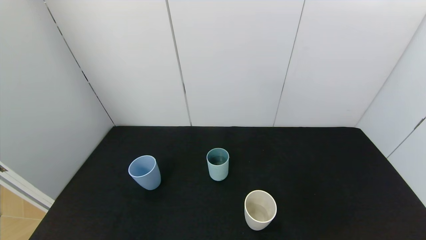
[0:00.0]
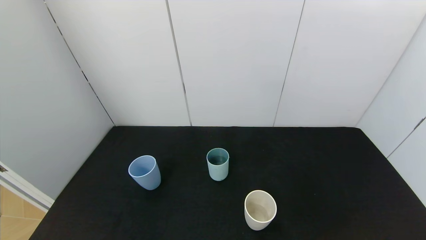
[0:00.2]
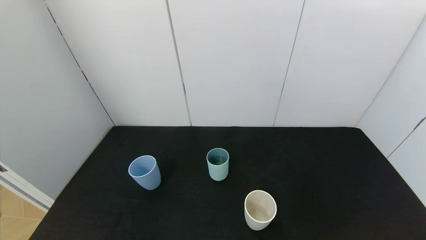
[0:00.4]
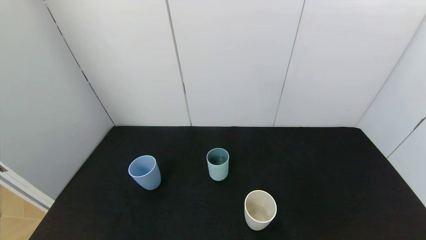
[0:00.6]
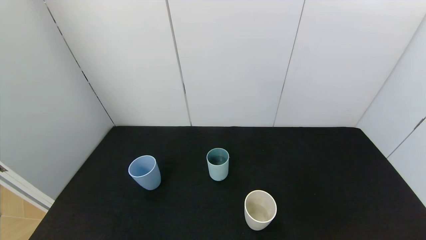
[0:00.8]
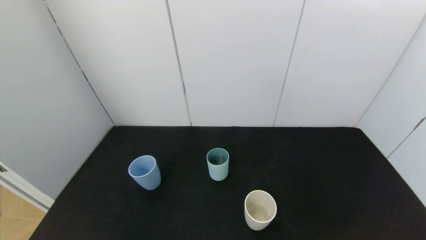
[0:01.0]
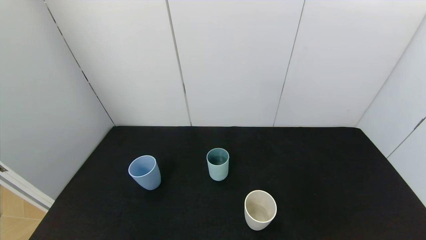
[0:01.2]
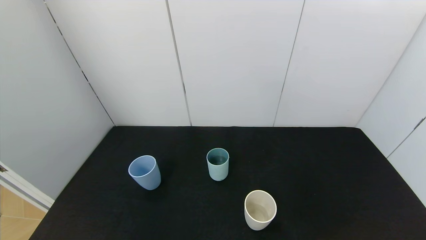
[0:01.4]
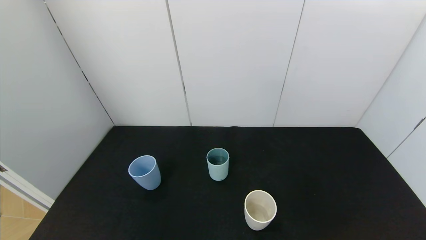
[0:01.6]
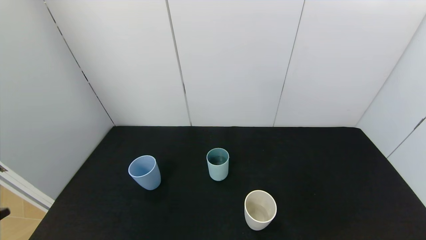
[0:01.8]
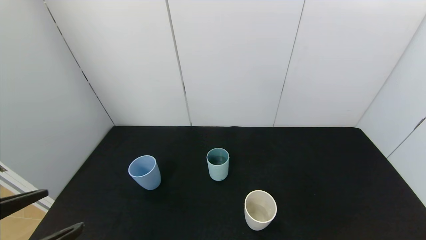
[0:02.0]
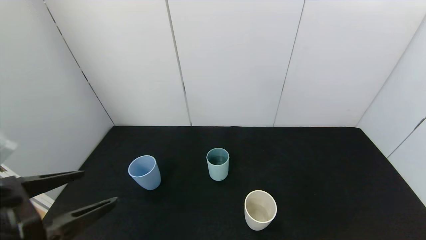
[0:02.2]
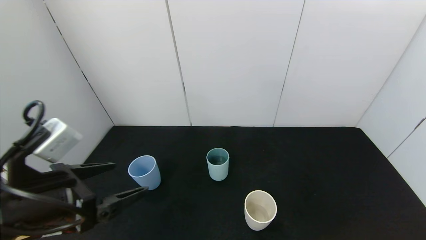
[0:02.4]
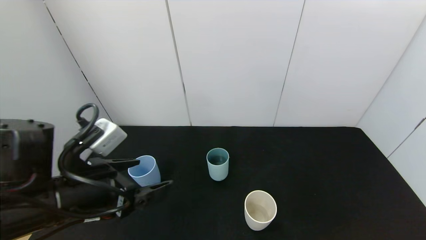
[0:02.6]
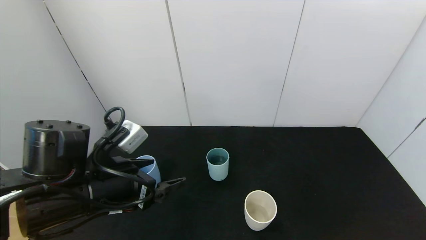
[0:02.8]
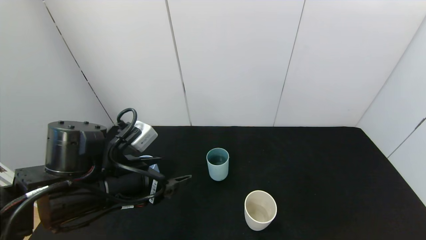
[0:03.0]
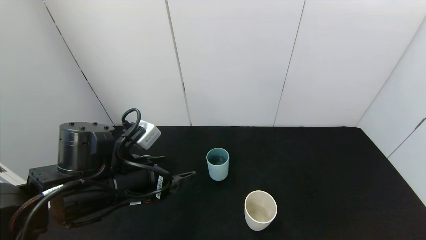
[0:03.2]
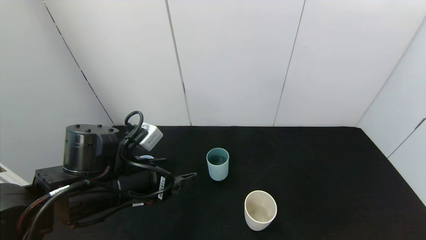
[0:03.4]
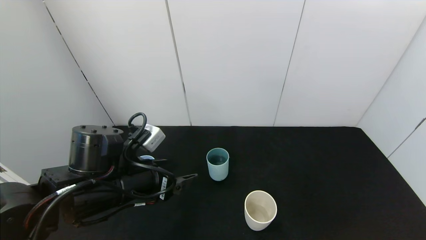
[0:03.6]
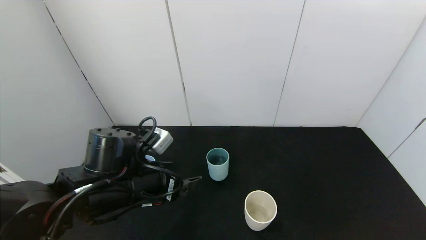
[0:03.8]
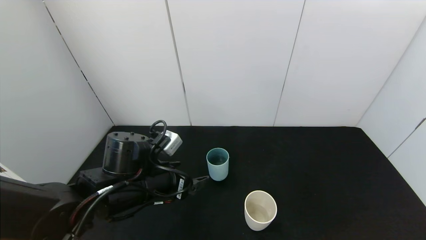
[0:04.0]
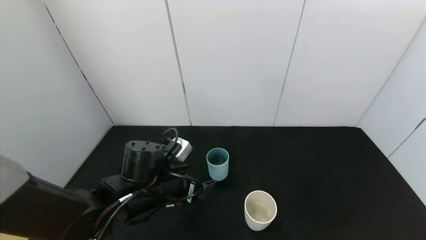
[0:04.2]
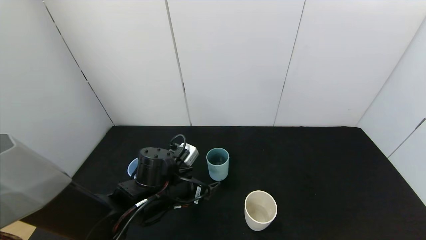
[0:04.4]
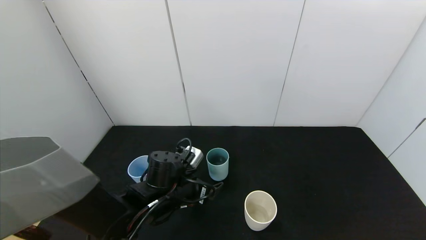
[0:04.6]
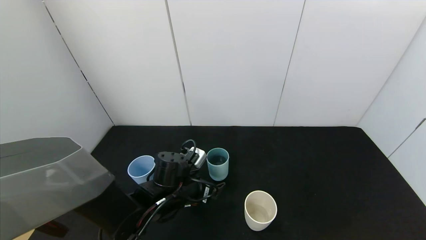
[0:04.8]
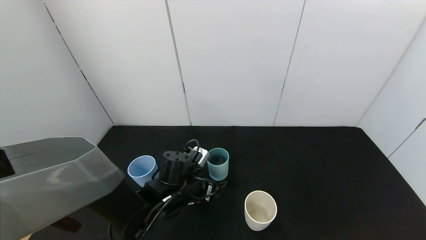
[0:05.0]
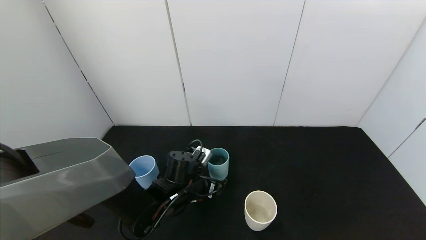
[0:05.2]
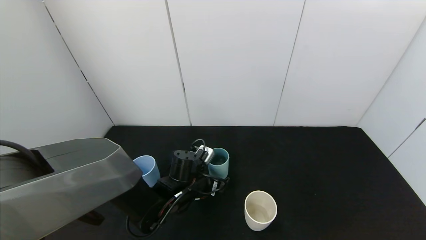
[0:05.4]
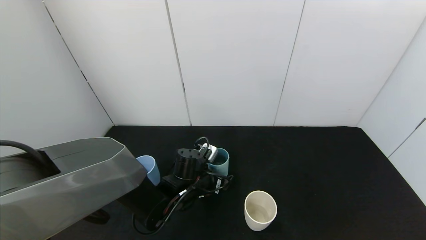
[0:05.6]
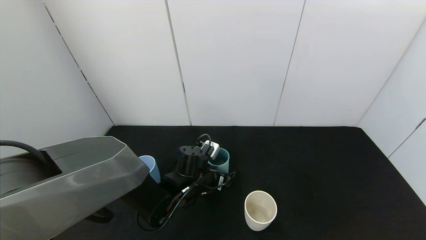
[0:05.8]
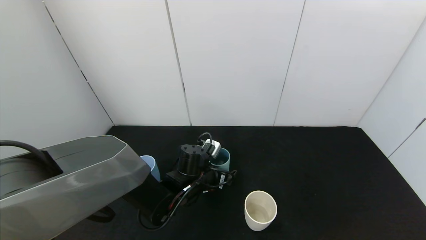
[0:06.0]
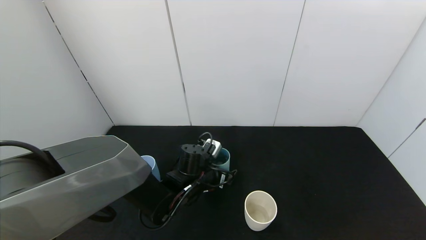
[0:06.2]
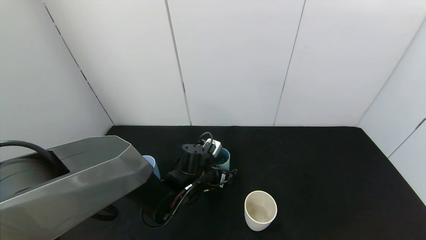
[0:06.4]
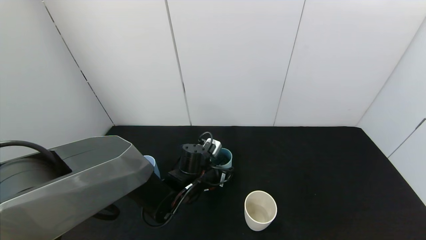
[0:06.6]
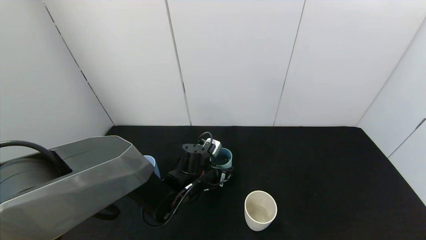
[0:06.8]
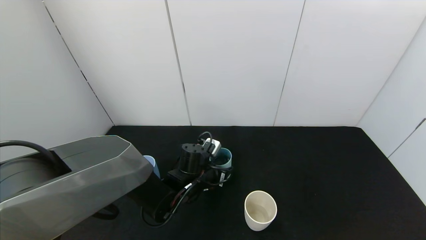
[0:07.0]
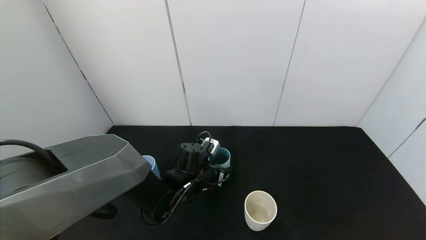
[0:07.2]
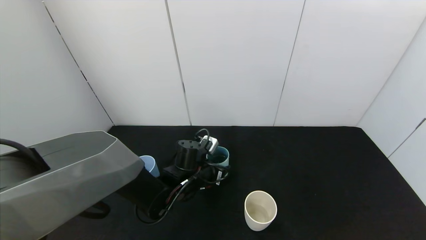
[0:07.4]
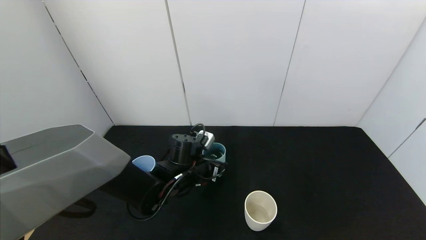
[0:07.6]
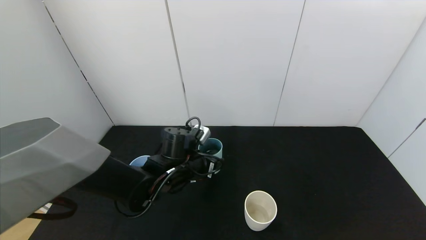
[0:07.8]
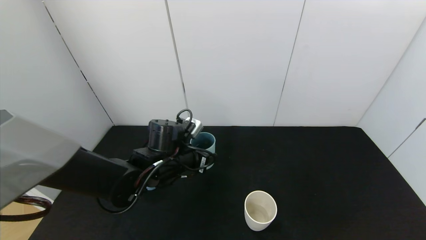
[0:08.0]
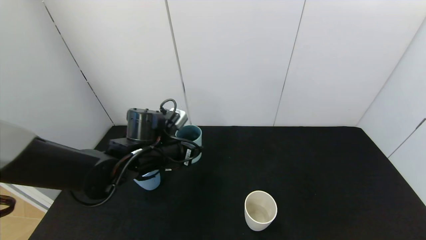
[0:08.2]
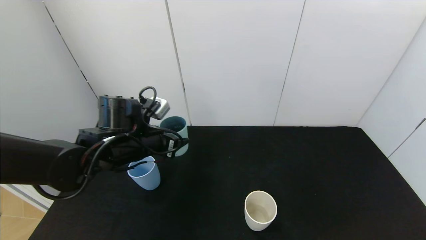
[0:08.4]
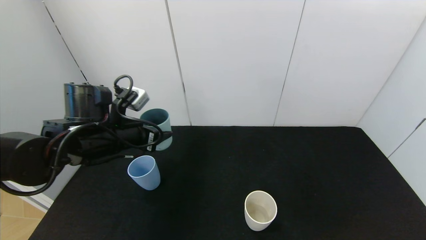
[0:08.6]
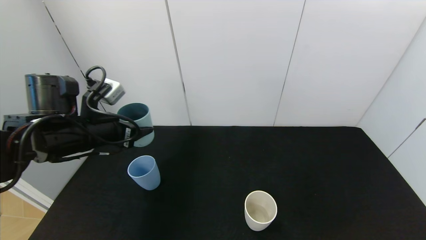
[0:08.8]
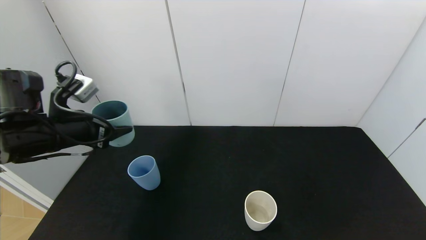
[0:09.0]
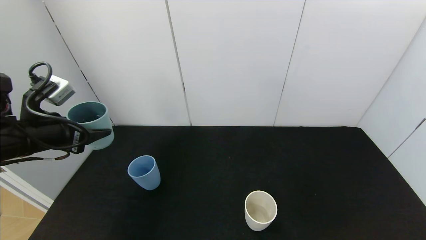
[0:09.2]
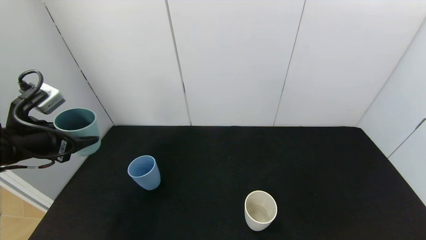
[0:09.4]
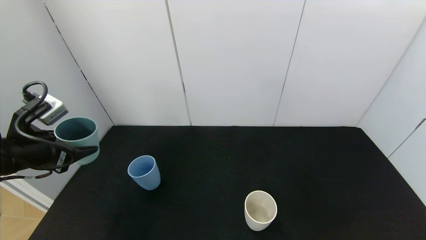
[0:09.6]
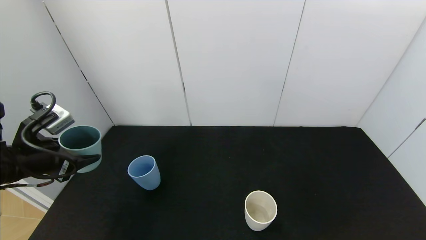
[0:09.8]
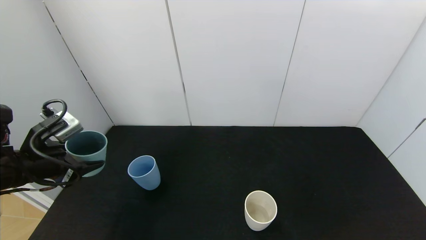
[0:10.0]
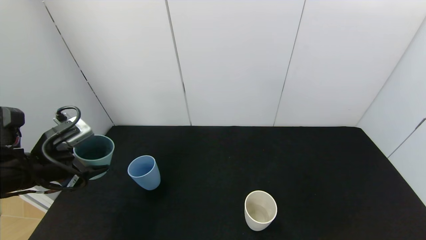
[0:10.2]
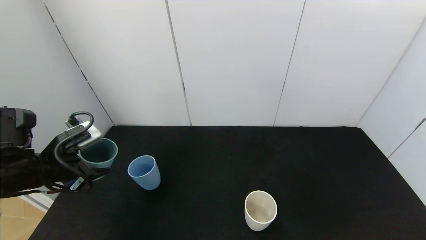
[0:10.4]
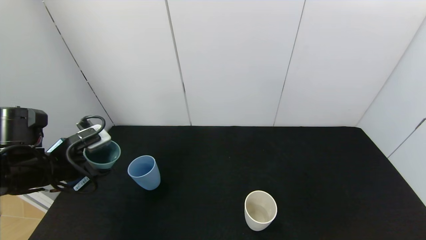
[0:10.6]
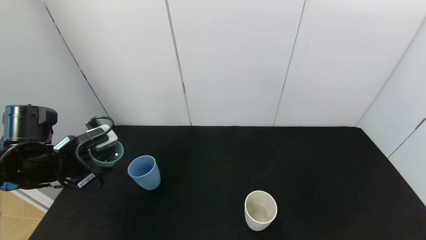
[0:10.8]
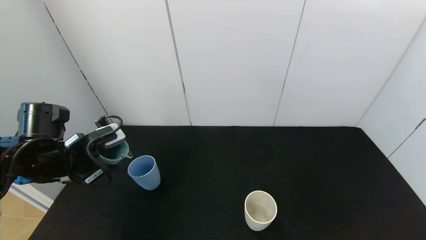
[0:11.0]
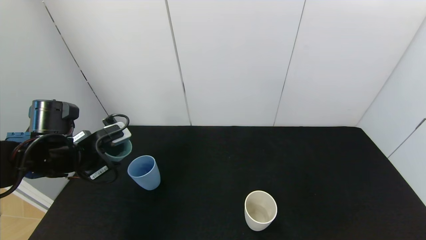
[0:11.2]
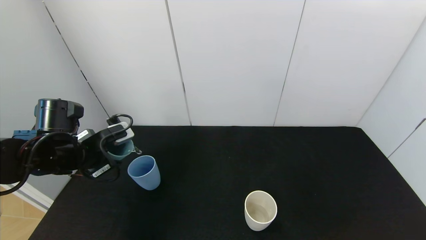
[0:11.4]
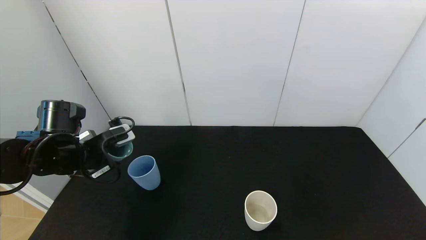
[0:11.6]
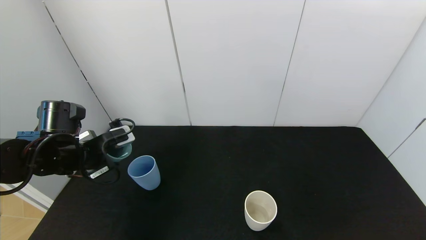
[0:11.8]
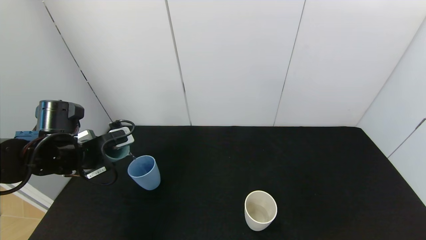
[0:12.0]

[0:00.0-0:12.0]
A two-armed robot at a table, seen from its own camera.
Task of the whole recording: use the gripper to pour the water into the other two cups on black table.
Step, 0:00.0 to 0:07.2: Grasp the green cup with the left gripper.
0:01.6 to 0:03.0: The left gripper shifts about 25 cm forward and to the right.
0:03.0 to 0:04.4: The left gripper travels downward, to the right and forward by roughly 10 cm.
0:04.4 to 0:06.0: The left gripper goes some 10 cm forward and to the right.
0:06.0 to 0:07.6: The left gripper closes up.
0:07.6 to 0:09.0: The left gripper is displaced to the left and upward by some 25 cm.
0:09.0 to 0:10.4: The left gripper travels downward by about 5 cm.
0:10.4 to 0:12.0: The left gripper is displaced forward by about 5 cm.

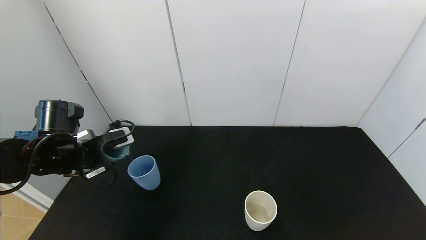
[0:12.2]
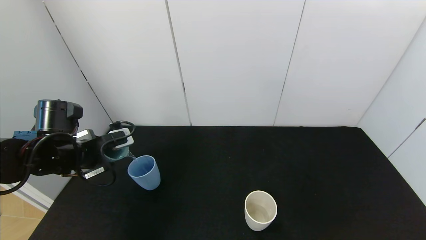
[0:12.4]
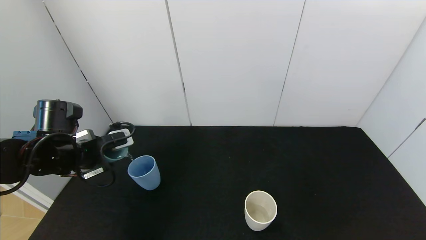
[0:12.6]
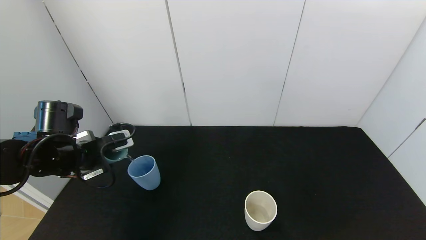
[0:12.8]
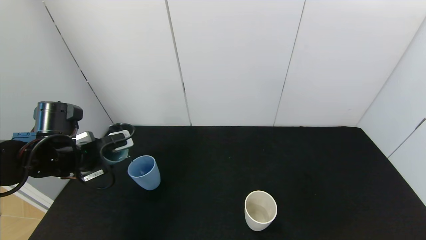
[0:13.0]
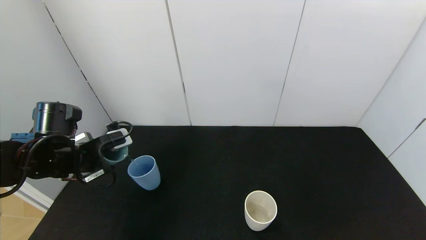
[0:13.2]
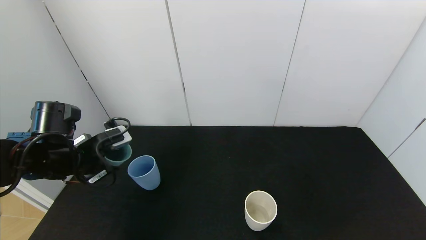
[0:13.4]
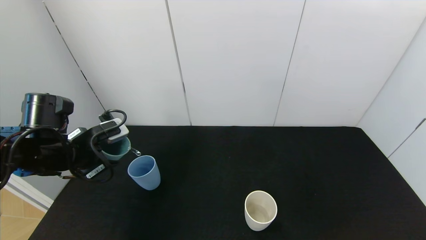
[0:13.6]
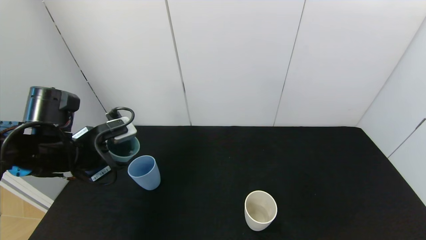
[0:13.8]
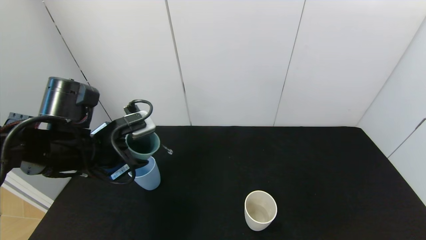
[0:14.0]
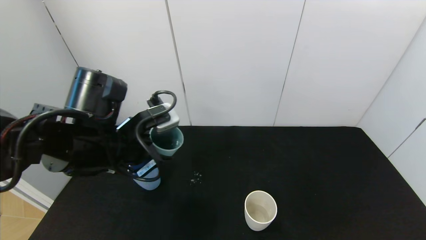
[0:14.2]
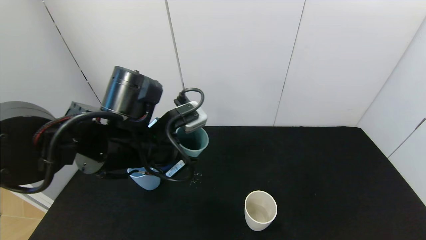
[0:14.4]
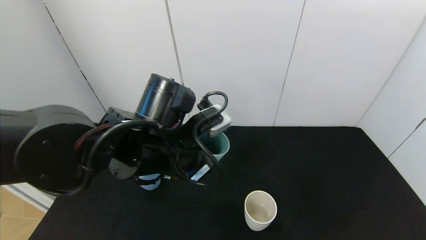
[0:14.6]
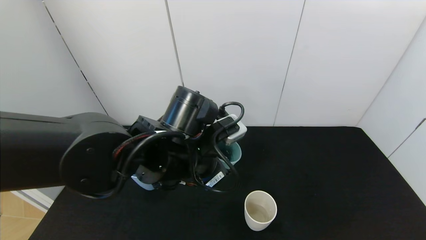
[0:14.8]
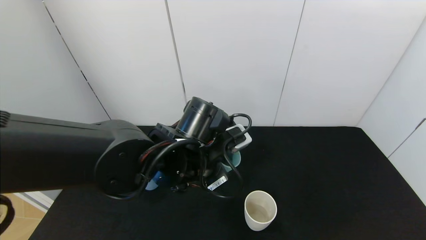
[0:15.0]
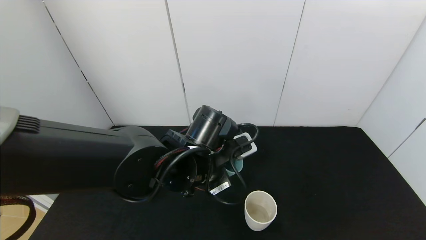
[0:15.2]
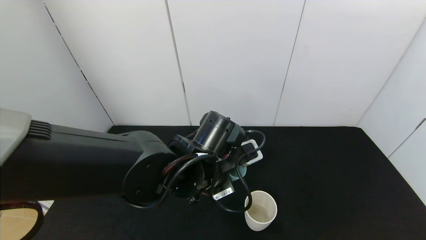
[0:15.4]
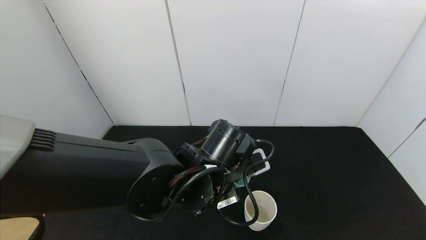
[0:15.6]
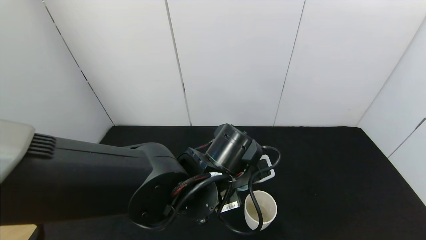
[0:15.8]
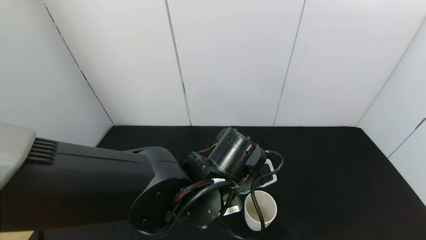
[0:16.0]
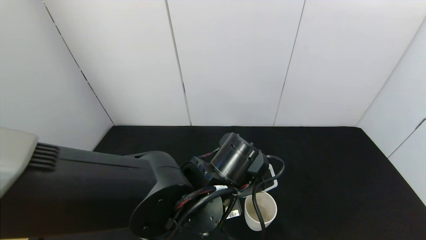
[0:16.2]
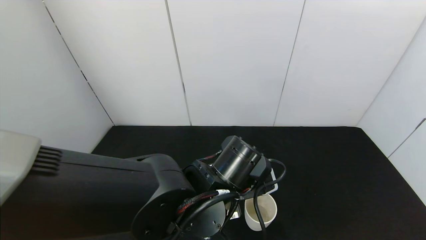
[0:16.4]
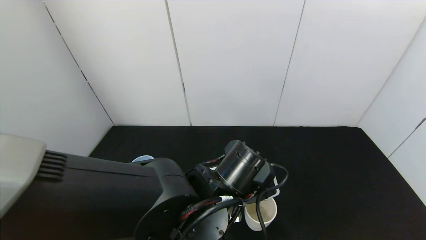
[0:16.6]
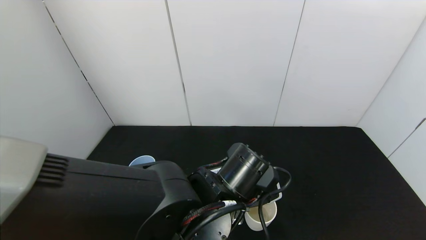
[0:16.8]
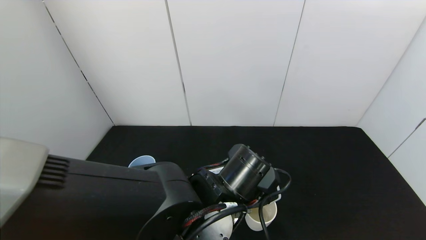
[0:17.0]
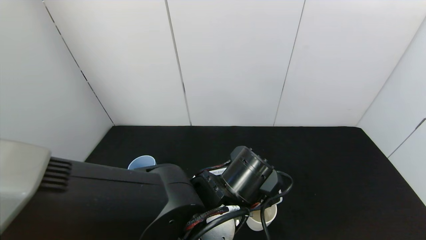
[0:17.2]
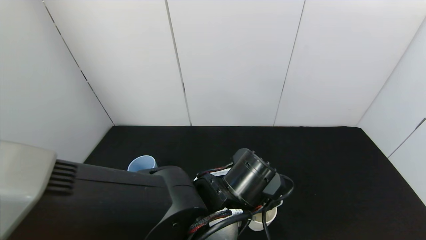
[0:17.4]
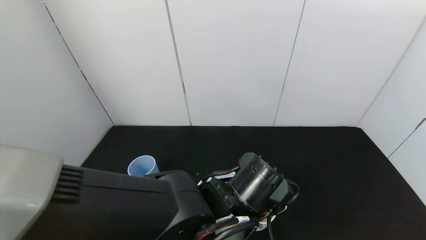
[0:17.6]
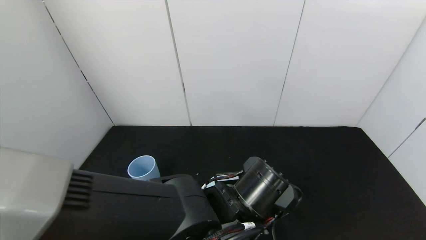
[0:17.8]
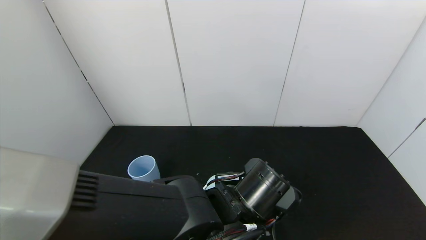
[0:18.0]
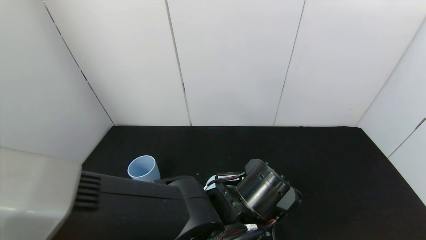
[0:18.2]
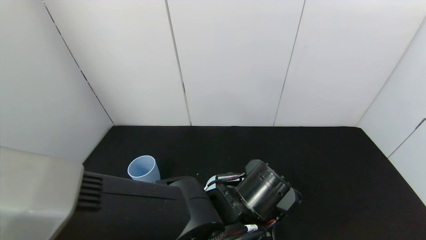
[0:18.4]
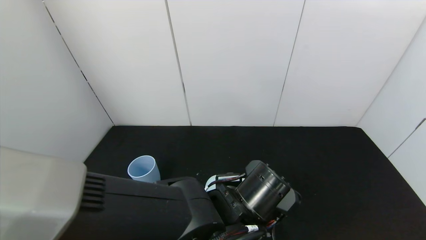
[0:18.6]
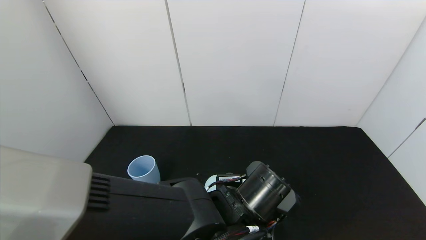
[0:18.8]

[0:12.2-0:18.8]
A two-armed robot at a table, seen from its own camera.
Task of the whole recording: use the gripper to pour the water into the other two cups on black table.
0:12.2 to 0:13.8: The left gripper moves some 5 cm.
0:13.8 to 0:15.4: The left gripper shifts roughly 20 cm to the right.
0:15.4 to 0:17.2: The left gripper changes place by approximately 5 cm.
0:17.2 to 0:18.8: The grippers stay close to where they were, moving slightly.
